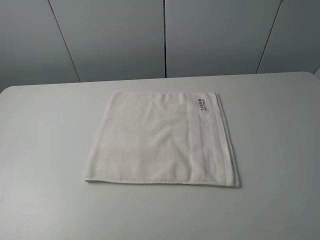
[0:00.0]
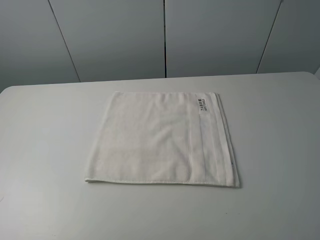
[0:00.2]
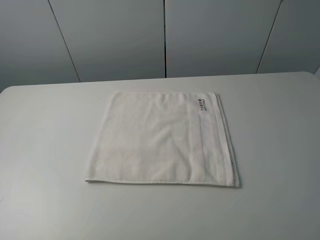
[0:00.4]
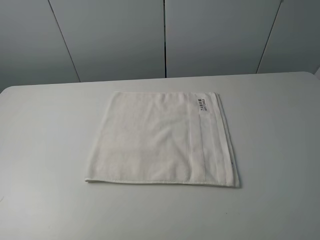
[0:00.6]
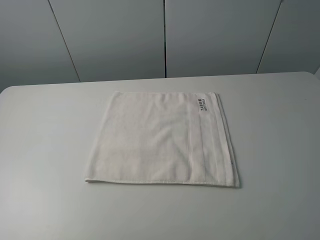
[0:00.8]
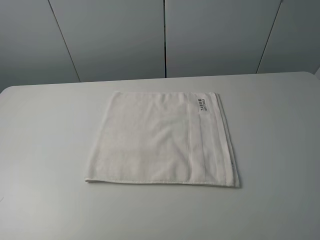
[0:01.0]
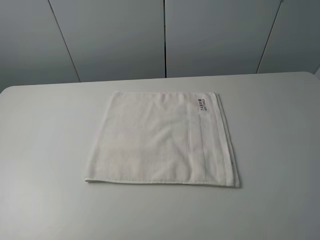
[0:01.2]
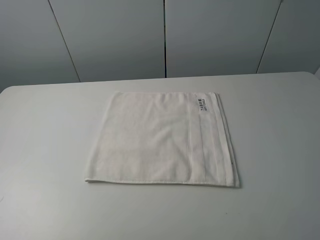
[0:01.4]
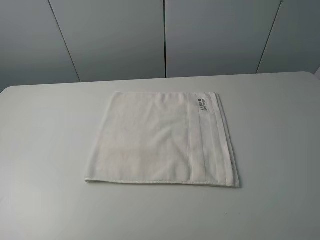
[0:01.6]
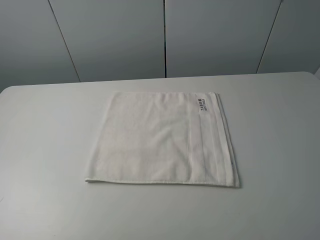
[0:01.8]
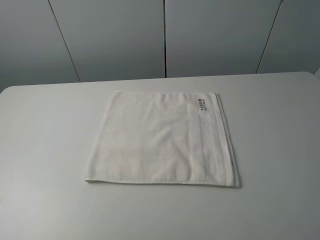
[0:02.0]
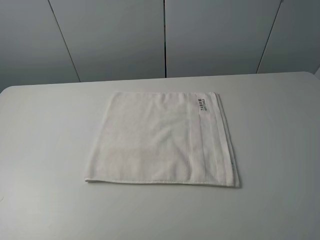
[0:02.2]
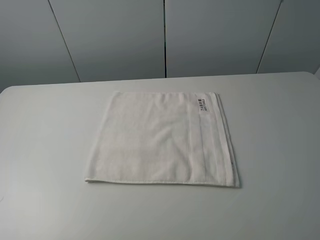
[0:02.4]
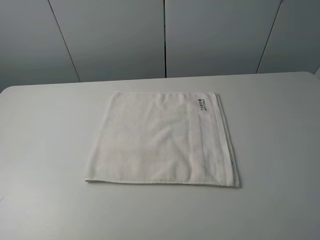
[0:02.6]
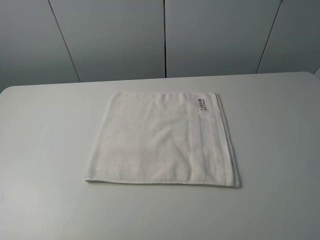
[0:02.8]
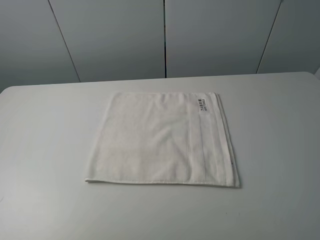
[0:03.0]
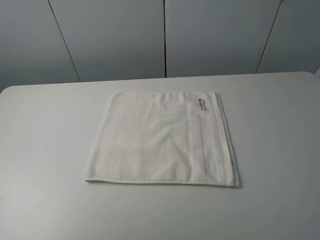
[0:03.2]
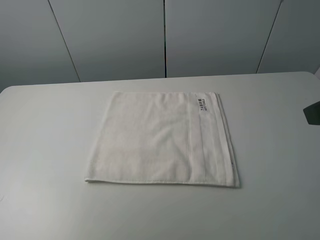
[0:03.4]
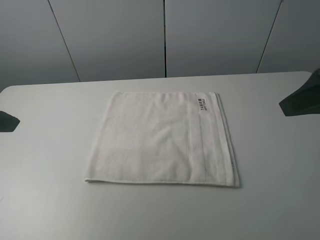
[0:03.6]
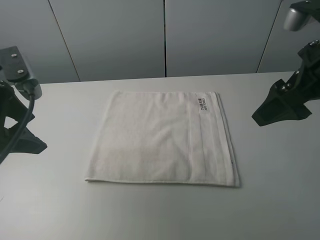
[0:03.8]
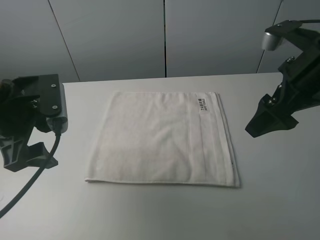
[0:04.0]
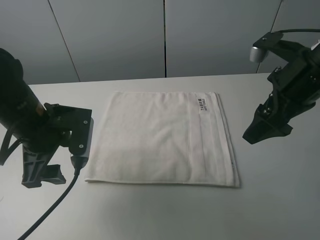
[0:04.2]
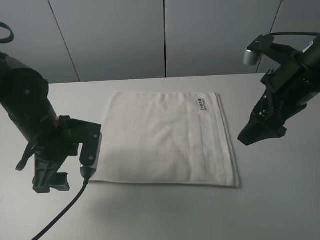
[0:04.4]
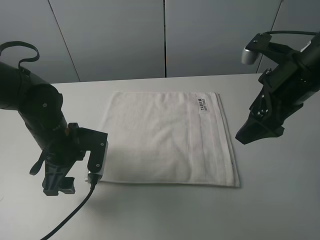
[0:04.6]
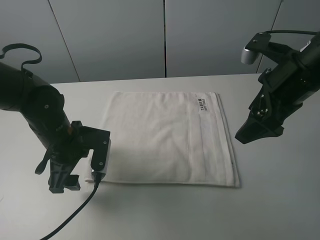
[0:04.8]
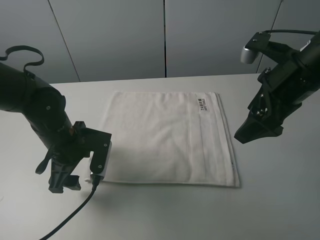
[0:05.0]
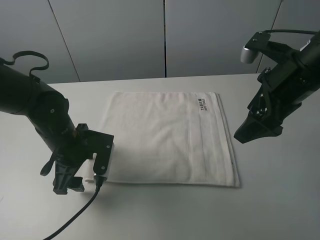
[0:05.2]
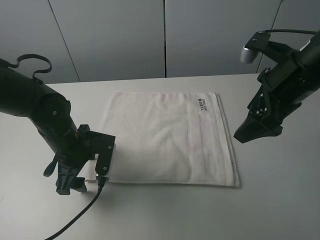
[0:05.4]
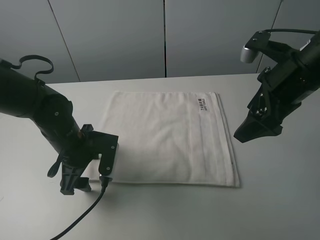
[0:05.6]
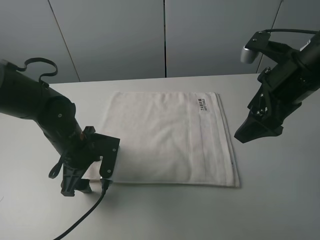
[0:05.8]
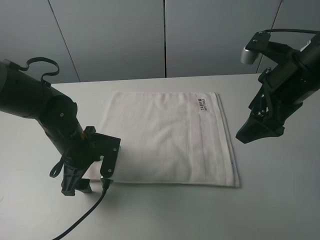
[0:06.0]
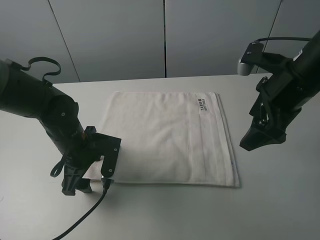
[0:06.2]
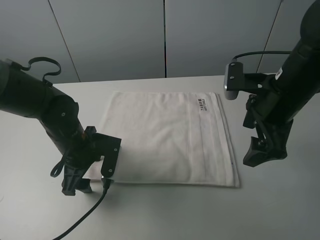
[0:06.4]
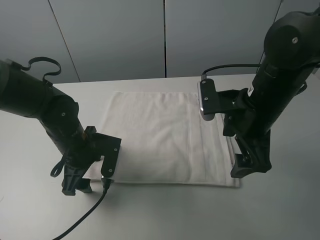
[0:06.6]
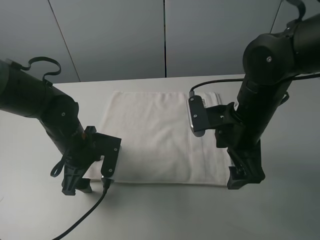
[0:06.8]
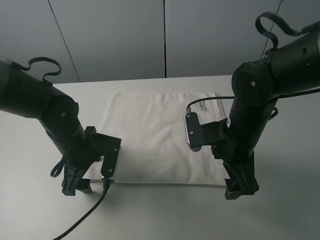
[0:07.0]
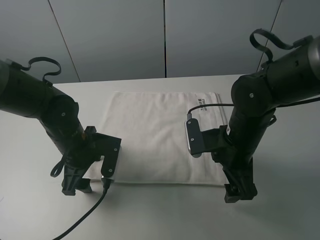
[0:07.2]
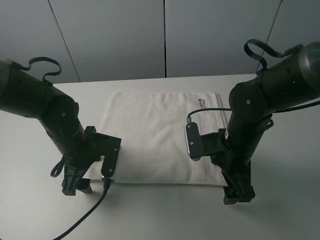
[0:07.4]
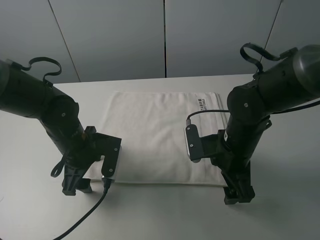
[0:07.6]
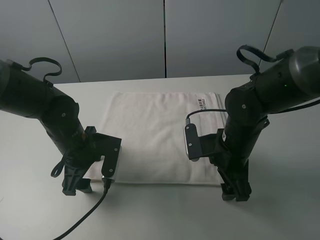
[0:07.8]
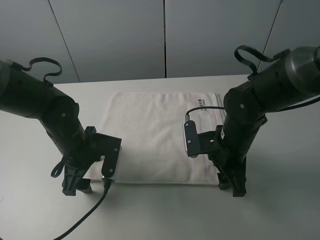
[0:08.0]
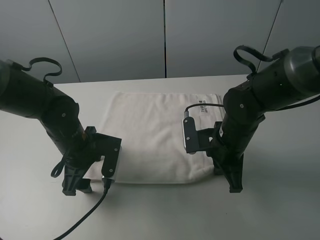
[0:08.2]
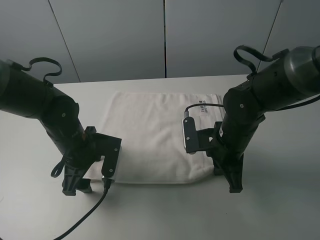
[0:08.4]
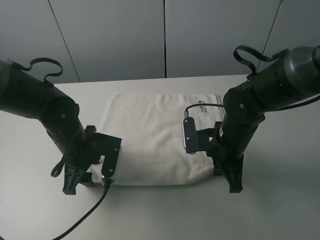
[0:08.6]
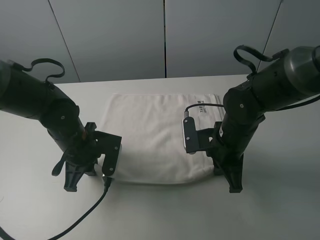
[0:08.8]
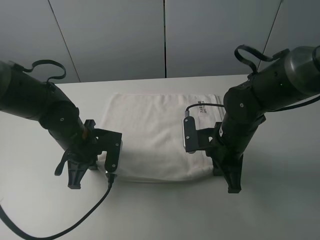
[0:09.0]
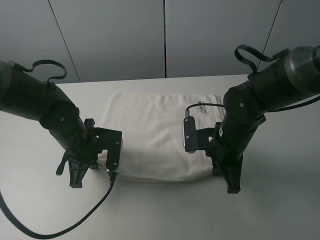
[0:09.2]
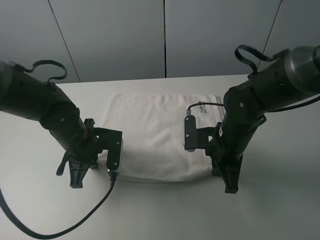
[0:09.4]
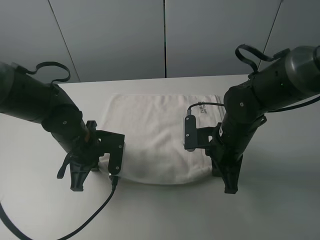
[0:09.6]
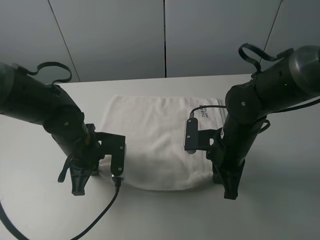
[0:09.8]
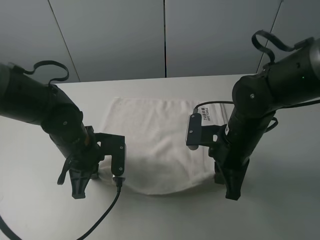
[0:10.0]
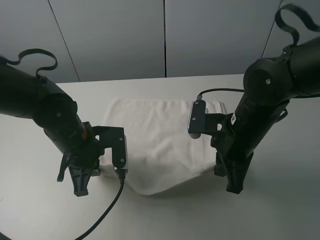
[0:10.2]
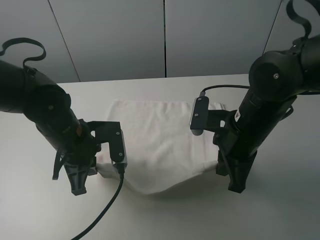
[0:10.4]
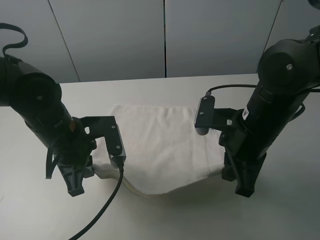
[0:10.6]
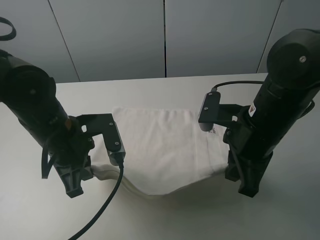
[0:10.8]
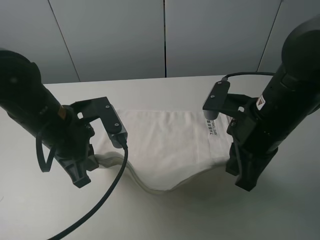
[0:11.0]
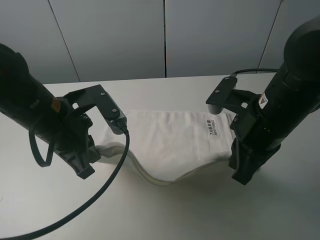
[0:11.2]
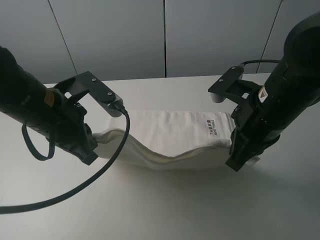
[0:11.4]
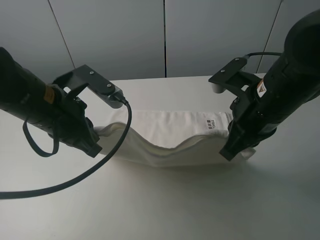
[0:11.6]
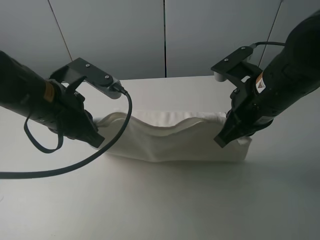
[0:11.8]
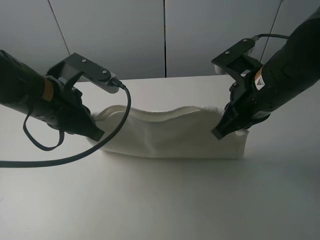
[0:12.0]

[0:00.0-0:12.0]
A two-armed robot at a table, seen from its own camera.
Task of the whole recording: fold the towels on the table.
Step, 0.0 to 8.2 s: Grasp the white towel with the right gripper.
Step, 8.4 to 8.8 s: Grasp the white towel with the left gripper.
0.0 to 1.6 s: The two grippers keep their place.
3.0 to 4.4 s: The left gripper travels forward, downward and to the right by roughly 30 cm. Meanwhile the right gripper goes approximately 20 cm forward.
4.4 to 6.0 s: The left gripper heads downward, covering some 5 cm.
6.0 to 7.6 s: The right gripper goes some 15 cm downward and to the left.
7.6 to 9.0 s: The left gripper closes its fingers. The right gripper closes.
9.0 to 10.4 s: The left gripper moves roughly 5 cm. Meanwhile the right gripper is displaced upward by about 5 cm.
10.4 to 12.0 s: The two grippers go some 5 cm upward.

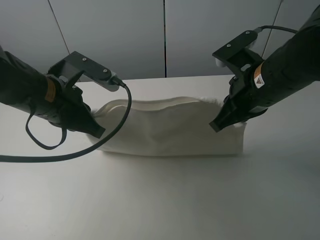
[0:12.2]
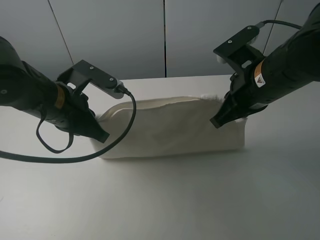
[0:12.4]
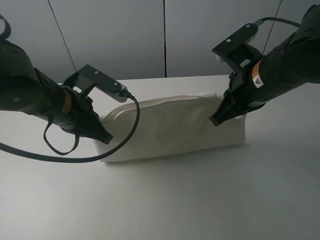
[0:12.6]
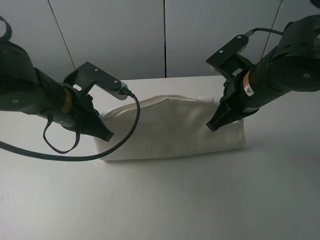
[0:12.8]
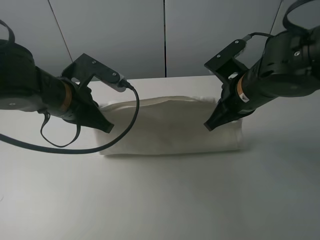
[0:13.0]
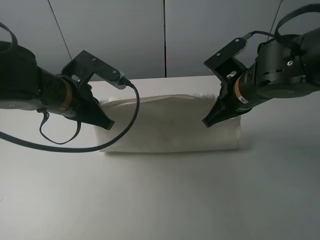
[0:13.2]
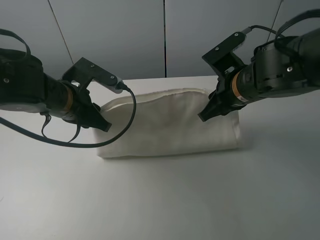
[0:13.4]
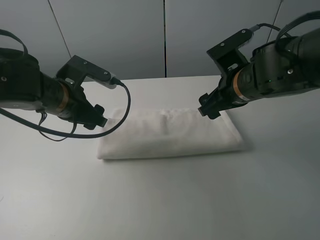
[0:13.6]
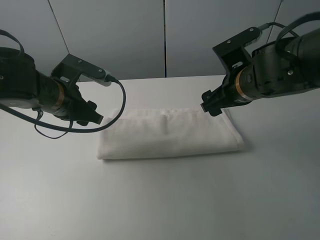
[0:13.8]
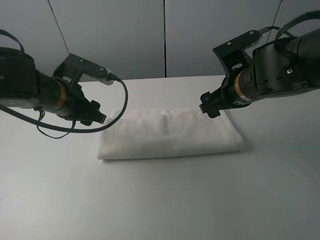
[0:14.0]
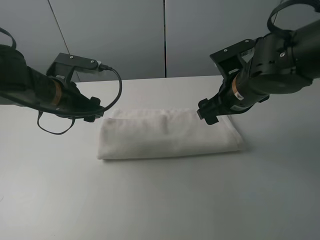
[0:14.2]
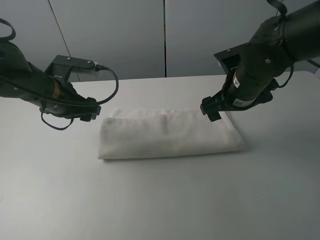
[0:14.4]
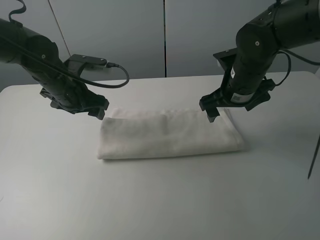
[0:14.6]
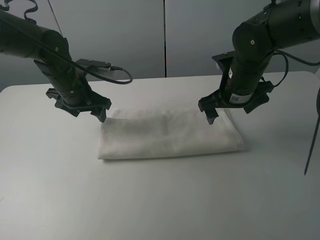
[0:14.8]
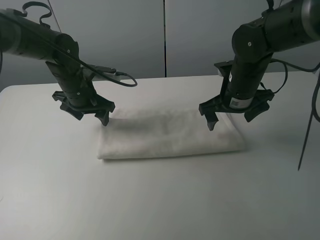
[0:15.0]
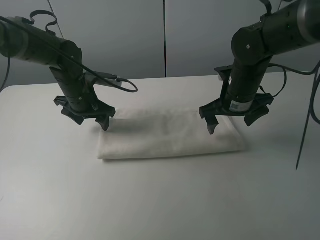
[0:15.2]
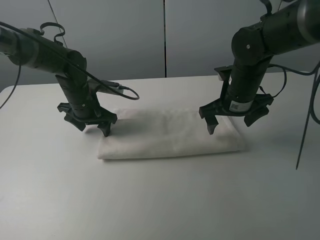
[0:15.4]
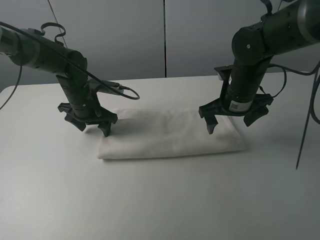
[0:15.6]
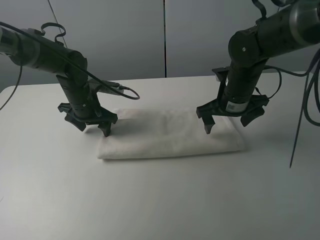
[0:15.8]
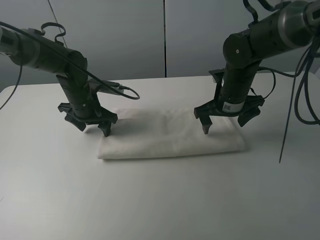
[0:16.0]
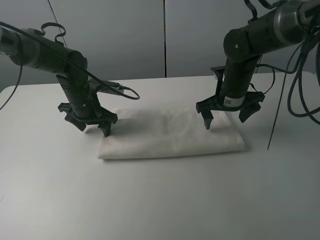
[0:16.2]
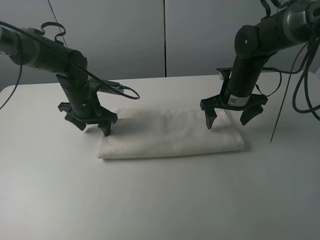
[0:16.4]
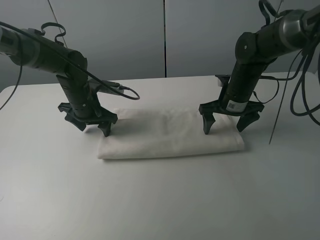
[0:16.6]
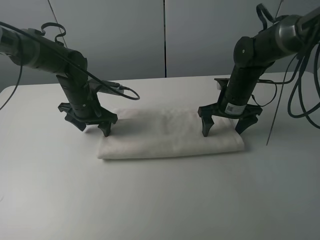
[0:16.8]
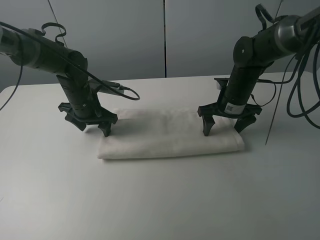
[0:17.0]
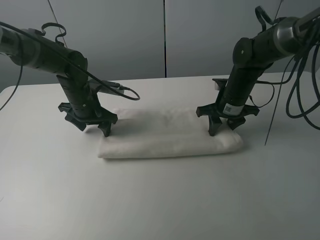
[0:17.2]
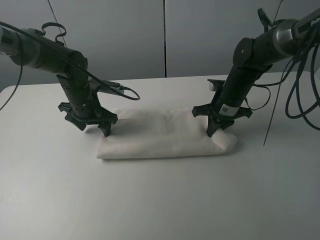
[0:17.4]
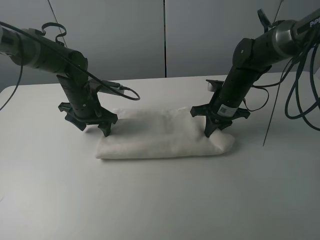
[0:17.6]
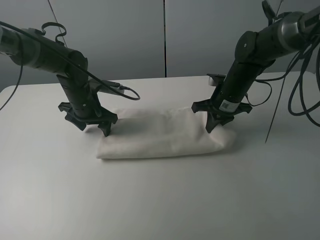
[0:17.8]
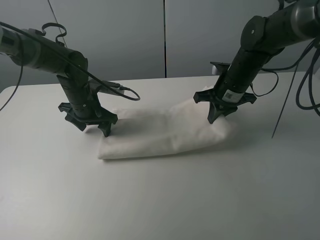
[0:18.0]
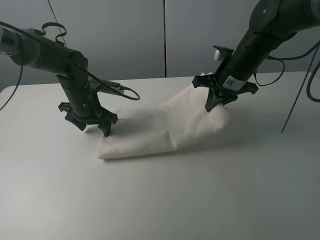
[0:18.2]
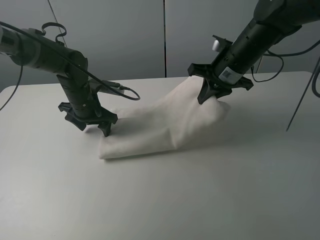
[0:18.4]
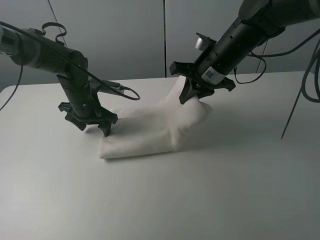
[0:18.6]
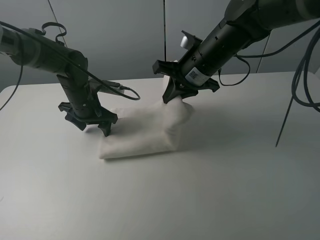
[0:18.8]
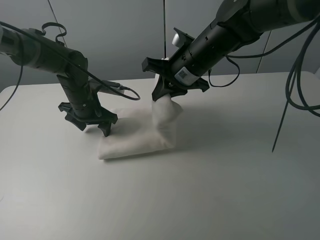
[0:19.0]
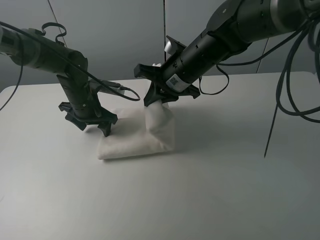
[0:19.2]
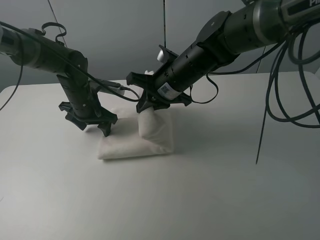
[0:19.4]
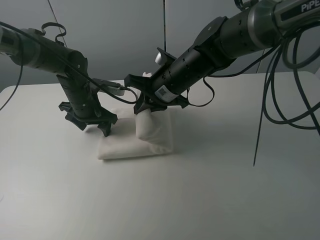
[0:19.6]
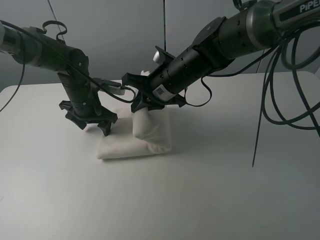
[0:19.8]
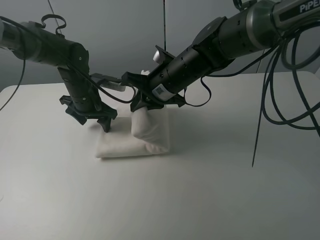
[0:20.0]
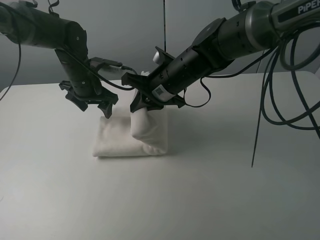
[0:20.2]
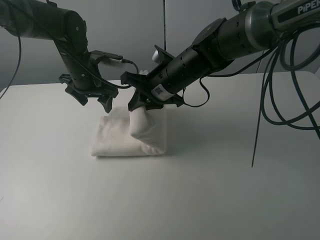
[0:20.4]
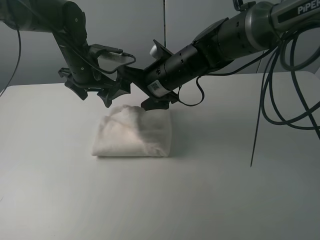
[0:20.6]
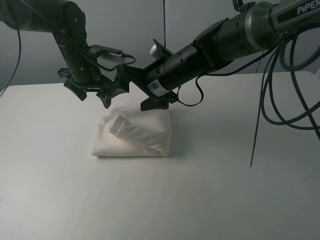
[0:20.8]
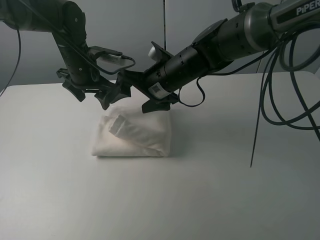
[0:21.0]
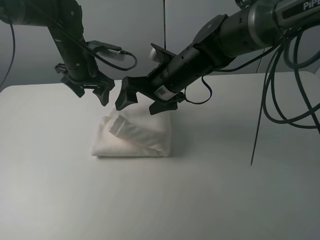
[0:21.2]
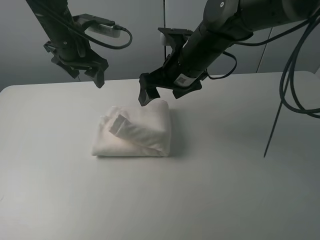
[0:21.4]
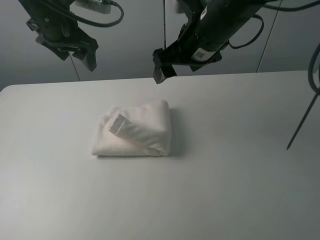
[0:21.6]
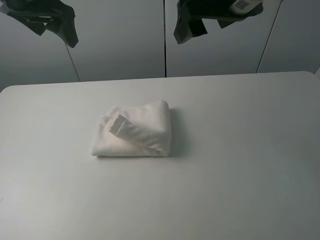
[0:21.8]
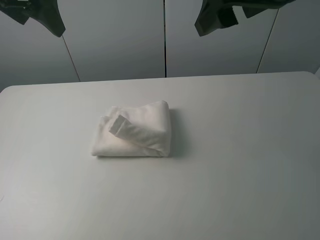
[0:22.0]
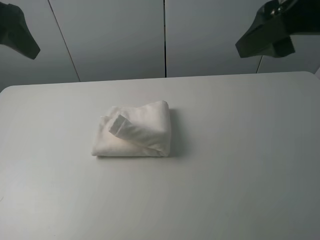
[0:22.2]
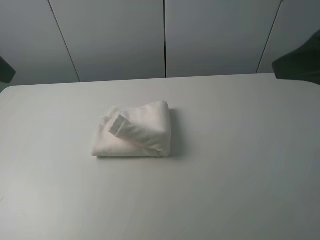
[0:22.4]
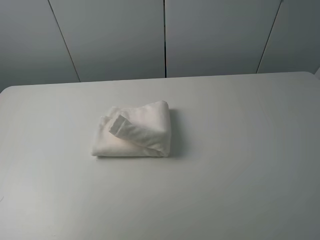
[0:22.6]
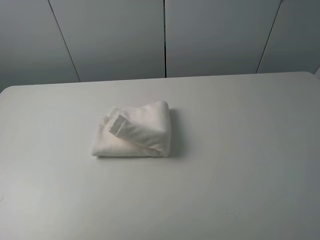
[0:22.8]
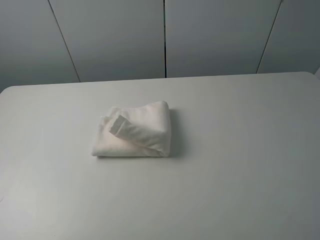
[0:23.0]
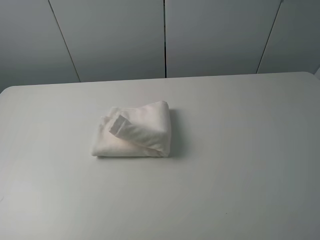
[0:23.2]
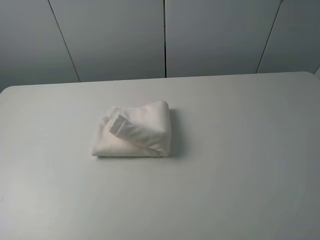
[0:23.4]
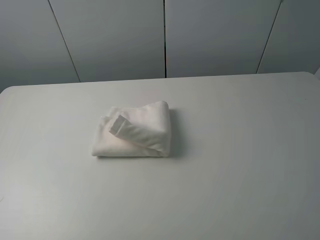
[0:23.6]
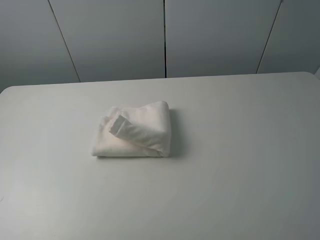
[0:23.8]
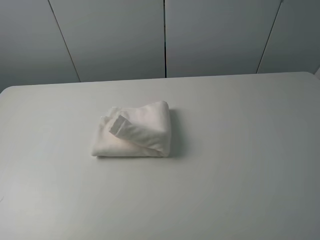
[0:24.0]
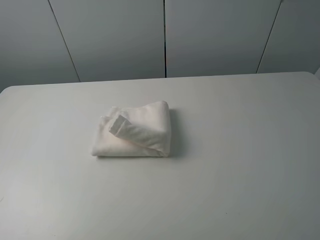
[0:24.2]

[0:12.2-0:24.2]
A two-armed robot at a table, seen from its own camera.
Task of the whole recording: fold the towels on the table.
Step, 14.2 to 15.4 s: Press on the white towel with the left gripper.
Step, 15.6 to 21.2 s: Fold the white towel from right to left with right gripper.
12.2 to 13.8 s: The left gripper shifts by roughly 5 cm, and opens. The right gripper shifts by some 5 cm, and opens up.
13.8 to 15.2 s: The left gripper heads forward and downward, covering about 10 cm. Meanwhile the right gripper moves about 5 cm.
15.2 to 16.6 s: The right gripper changes place by roughly 5 cm.
16.6 to 18.2 s: The right gripper shifts about 10 cm upward, and closes.
18.2 to 19.8 s: The right gripper shifts some 15 cm to the left.
19.8 to 21.2 s: The left gripper shifts some 10 cm upward. The right gripper opens up.
21.2 to 22.6 s: The left gripper heads backward and upward, covering some 35 cm. Meanwhile the right gripper travels backward, to the right and upward by about 40 cm.
